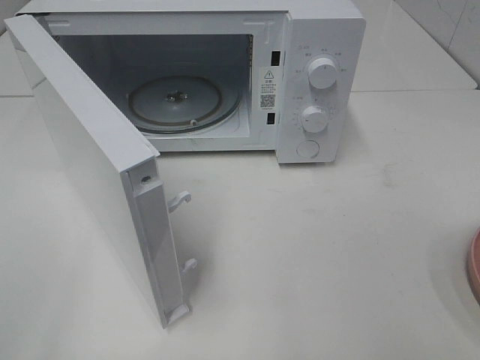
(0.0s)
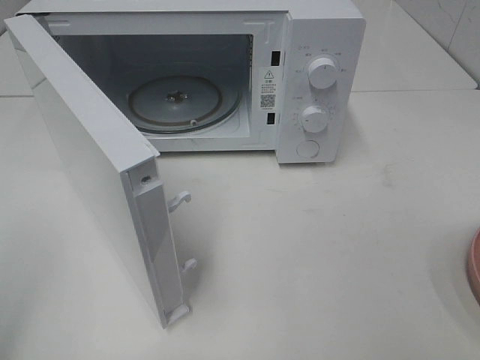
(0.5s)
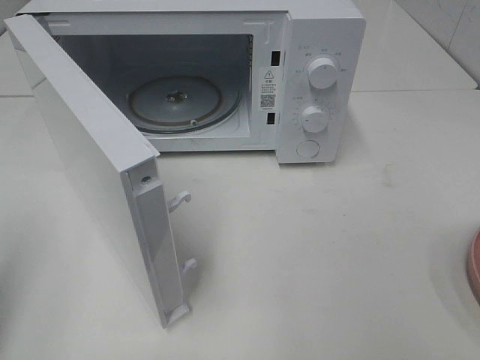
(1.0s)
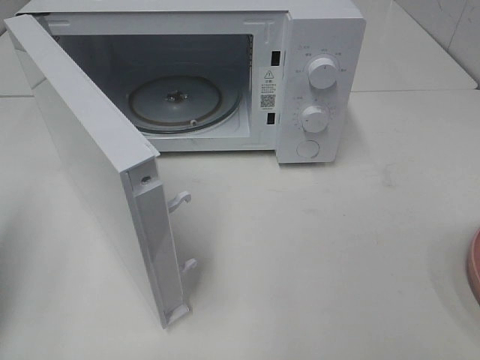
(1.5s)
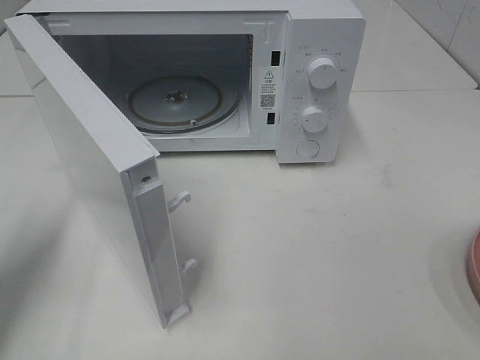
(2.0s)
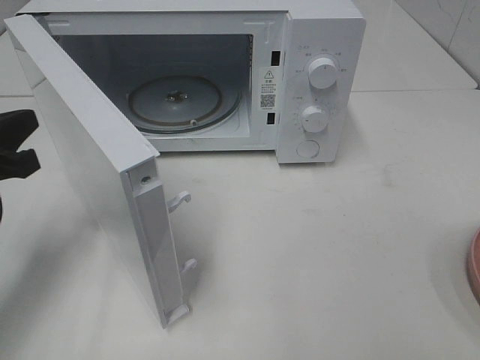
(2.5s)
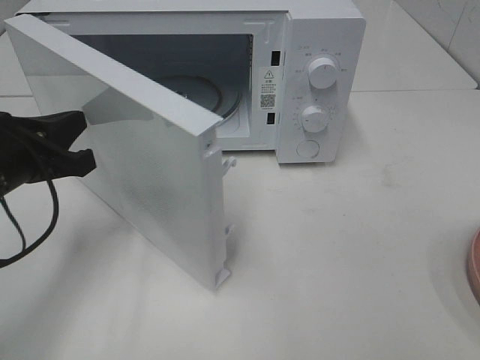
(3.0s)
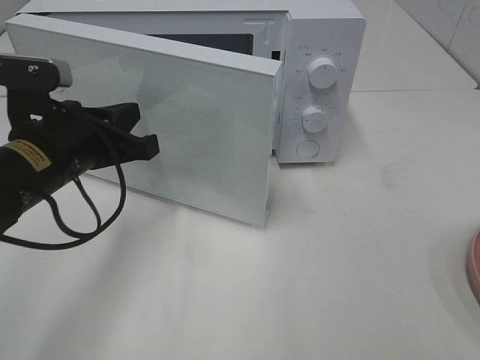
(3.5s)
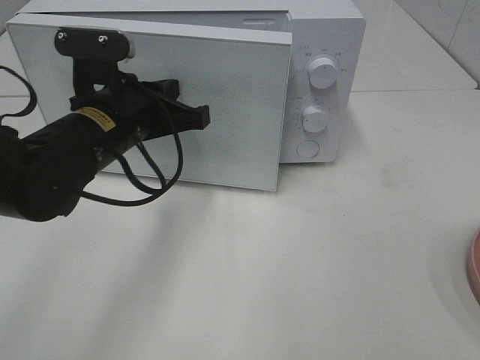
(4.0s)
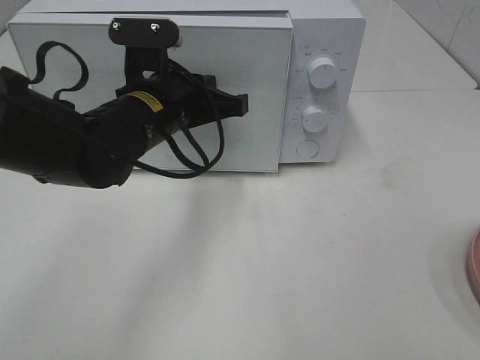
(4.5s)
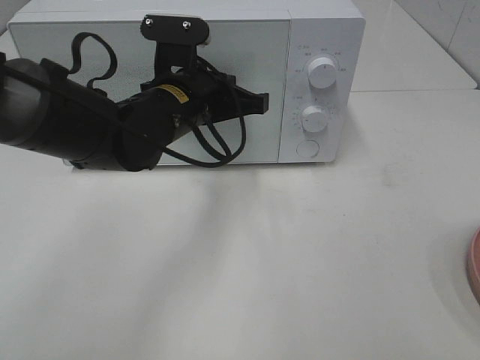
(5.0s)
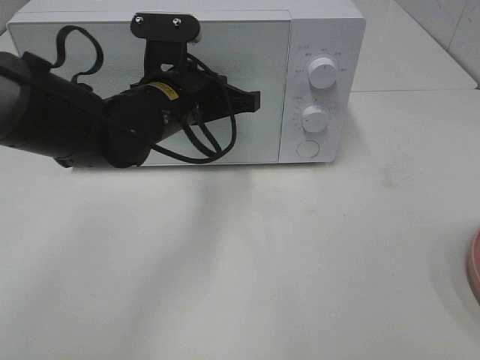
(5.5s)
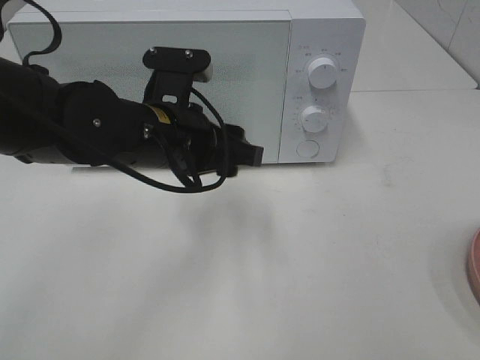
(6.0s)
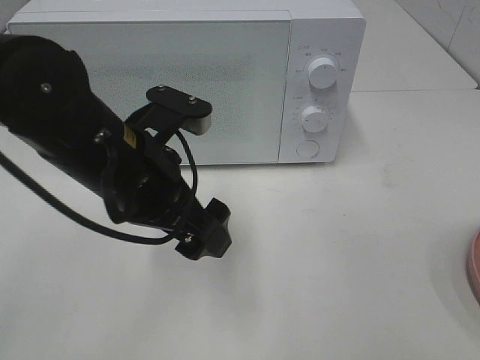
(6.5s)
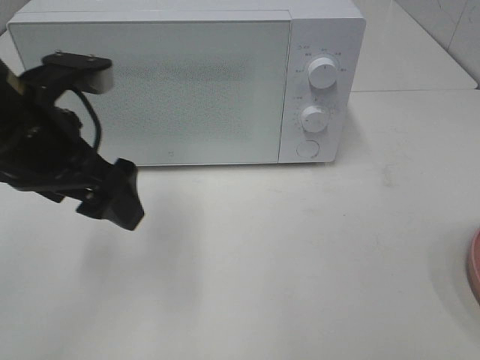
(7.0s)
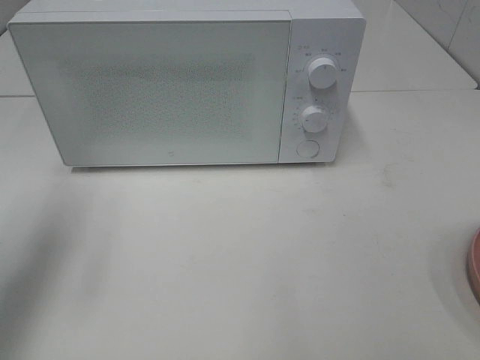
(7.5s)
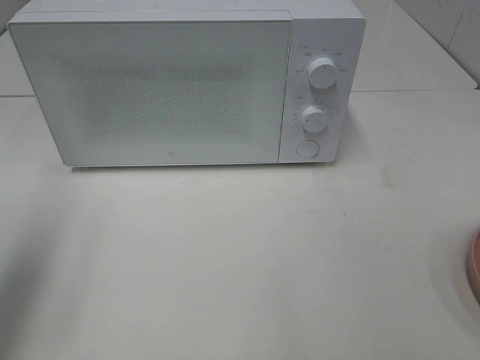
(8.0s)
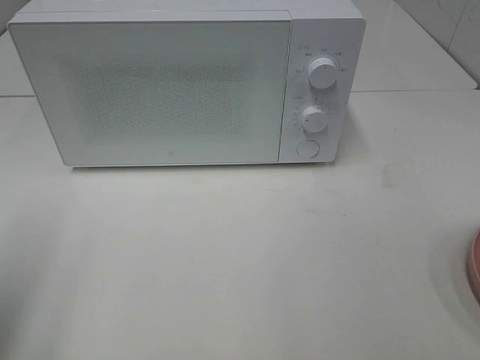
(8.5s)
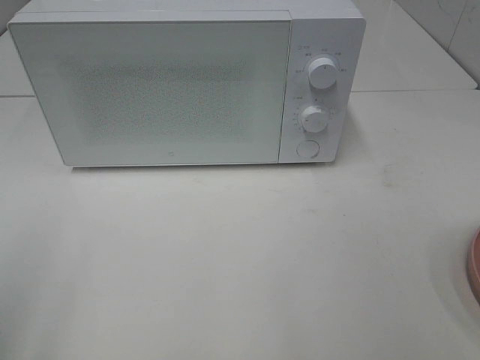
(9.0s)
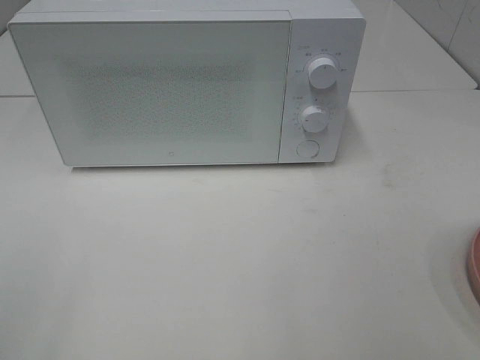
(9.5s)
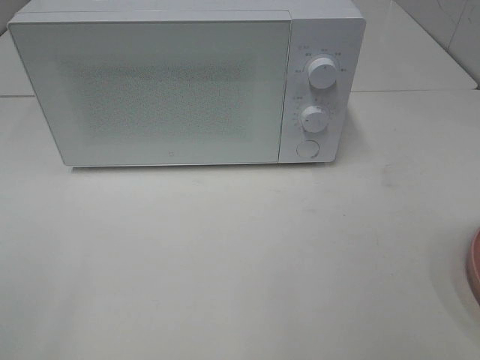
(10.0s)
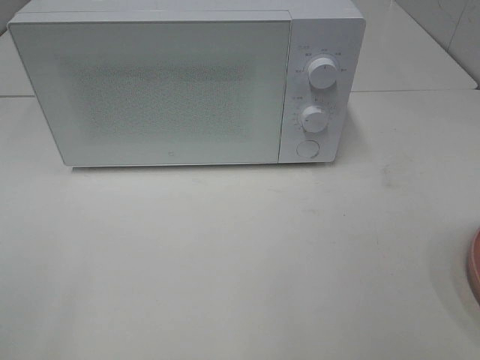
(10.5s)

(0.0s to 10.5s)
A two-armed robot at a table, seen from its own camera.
Task of the whole recording: Heat the burger.
Step, 0.0s - 5.5s: Left hand: close the microwave door.
0.0s - 2.0s: The left gripper shifts approximately 20 cm forward and downward, and closes its fingers.
2.0s - 4.0s: The left gripper is displaced to the right and forward by some 20 cm.
4.0s - 6.5s: The left gripper heads backward, covering roughly 5 cm, and opens.
6.5s - 8.5s: The left gripper heads to the left and backward, covering some 25 cm.

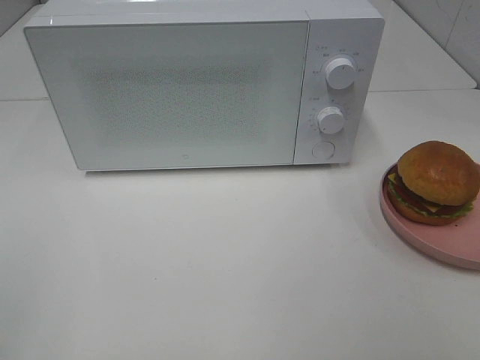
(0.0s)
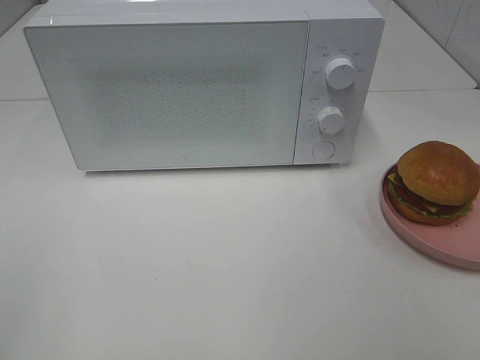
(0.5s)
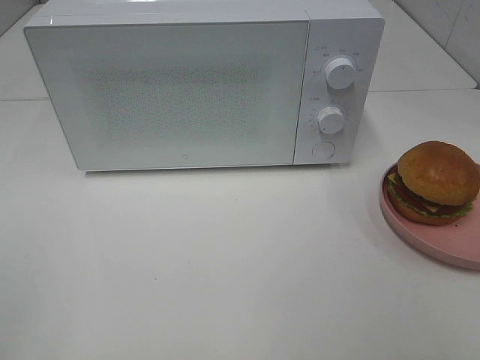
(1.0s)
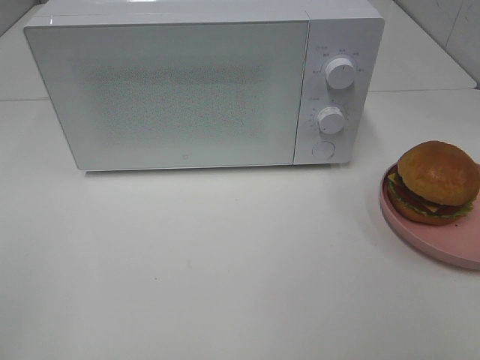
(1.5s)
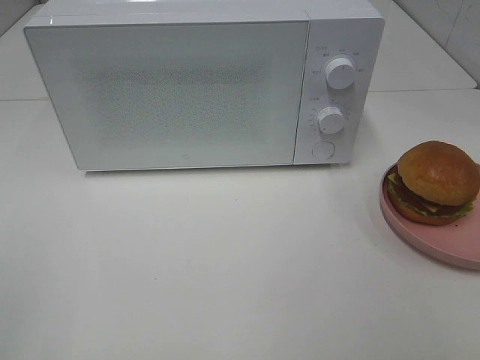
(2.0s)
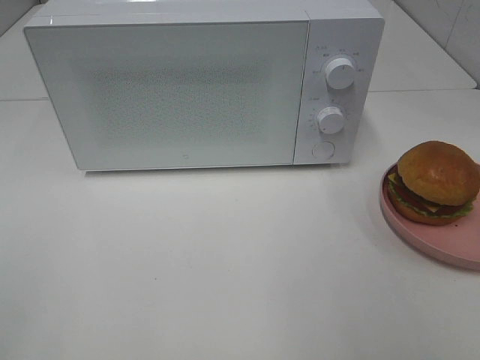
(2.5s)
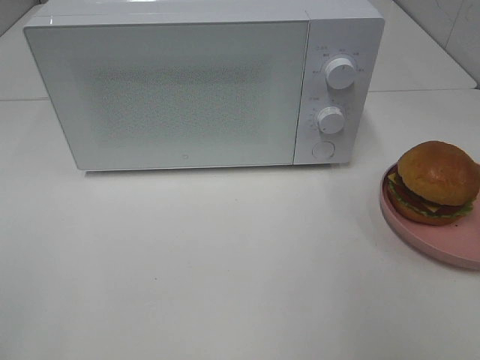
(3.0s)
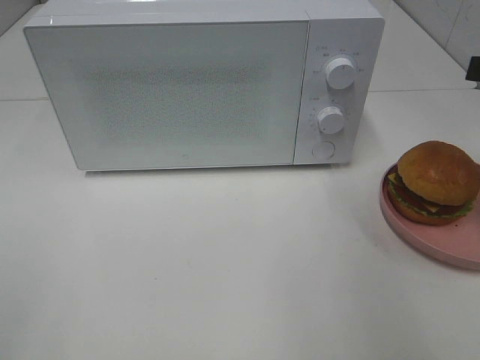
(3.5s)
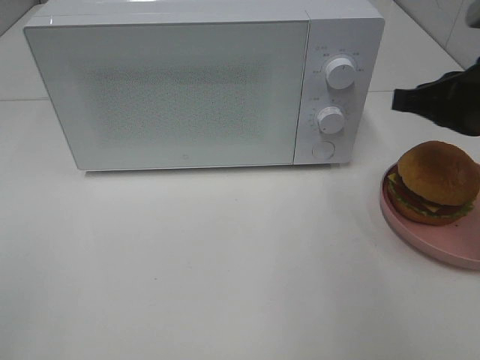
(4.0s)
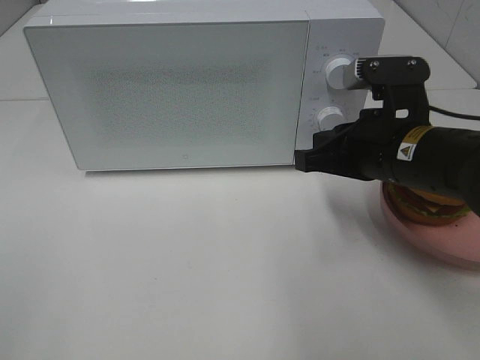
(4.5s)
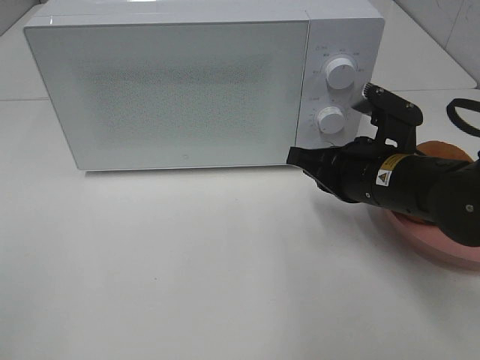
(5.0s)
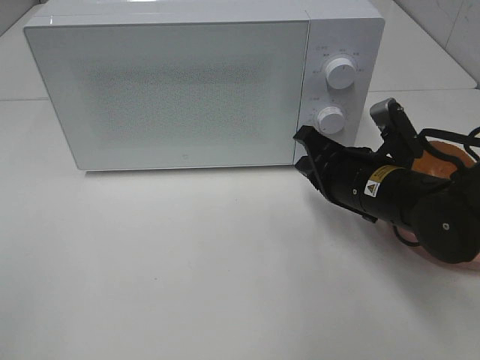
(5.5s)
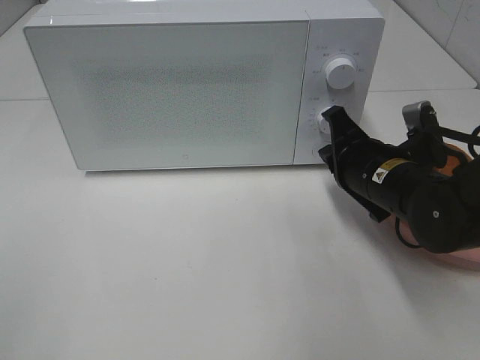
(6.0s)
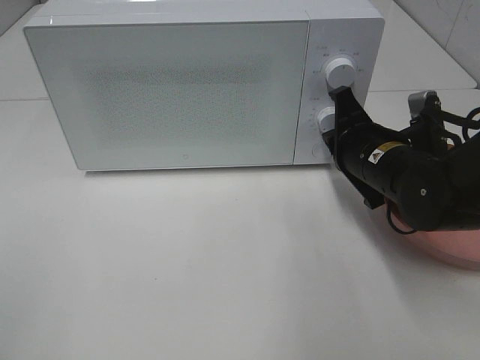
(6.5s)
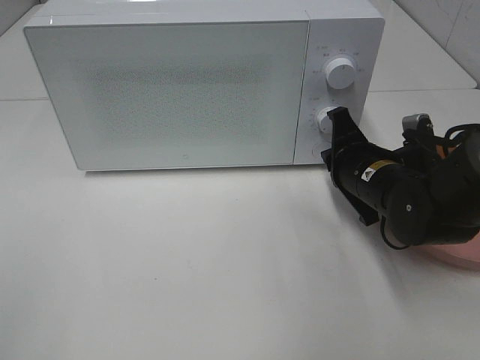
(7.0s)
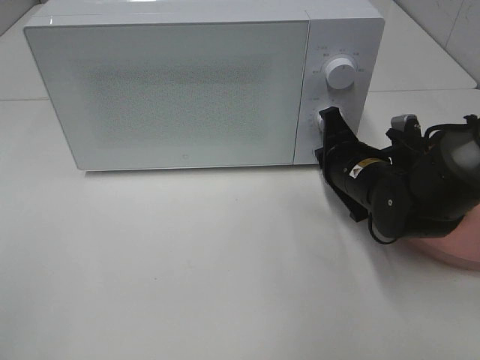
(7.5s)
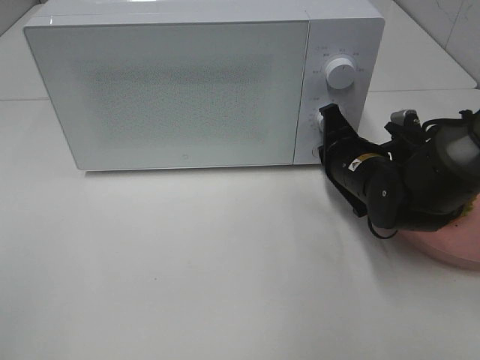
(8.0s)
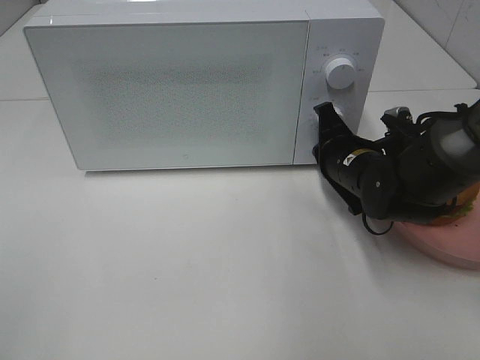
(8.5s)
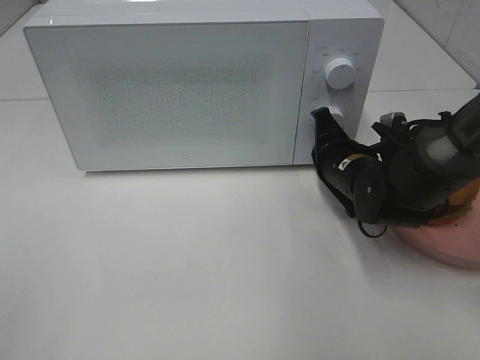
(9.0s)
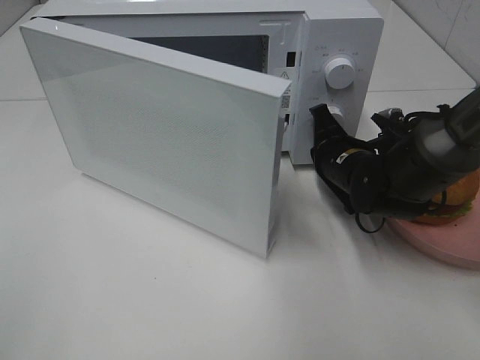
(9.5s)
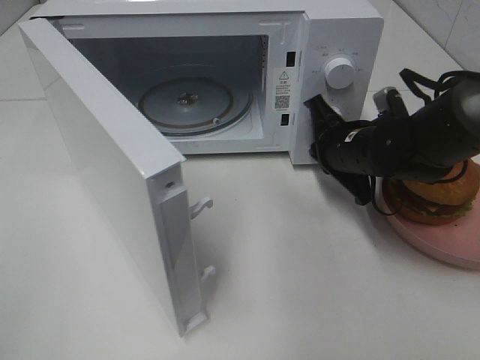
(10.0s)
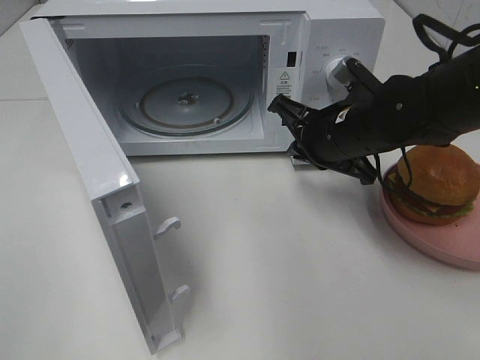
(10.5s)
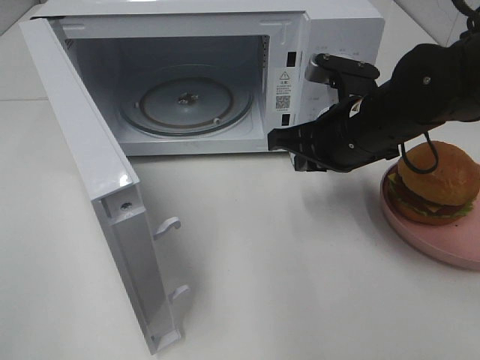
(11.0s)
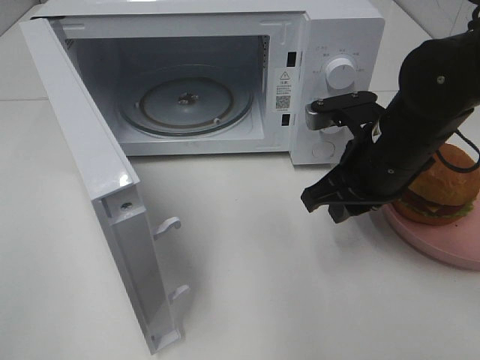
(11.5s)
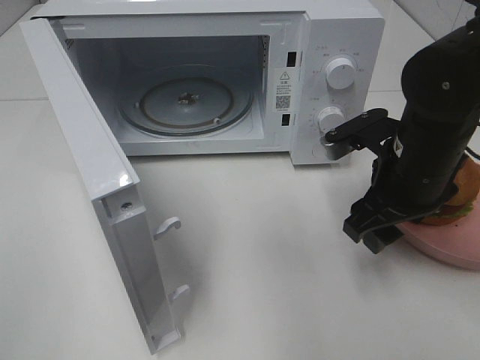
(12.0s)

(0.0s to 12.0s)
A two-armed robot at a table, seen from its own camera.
Task of the whole recording: Heat the burger.
Step, 0.0s - 10.0s: Right hand: press the switch.
0.0s - 2.0s: The two grippers keep their place.
2.0s - 4.0s: The right gripper travels forward by approximately 25 cm, and closes its fingers.
4.0s - 6.0s: The right gripper goes about 15 cm downward and to the left.
6.0s - 8.0s: The right gripper shifts by roughly 5 cm.
10.0s - 12.0s: The right gripper goes about 10 cm backward and upward, and opens its fingers.

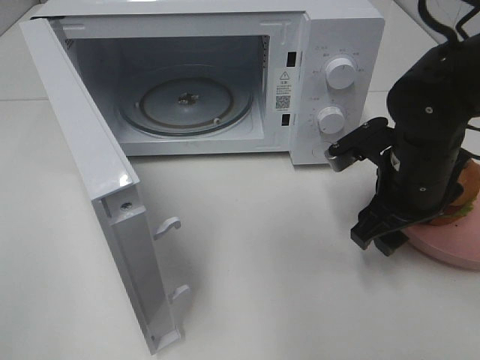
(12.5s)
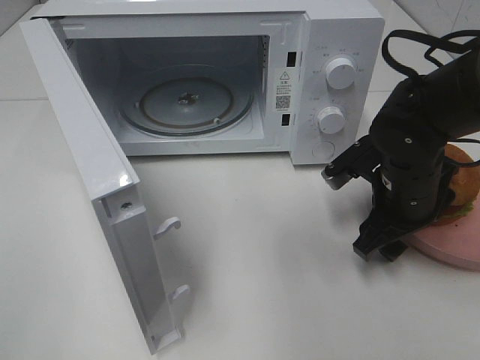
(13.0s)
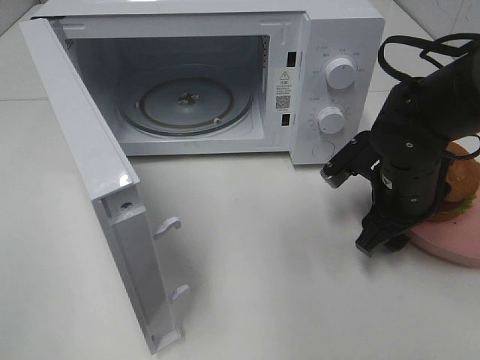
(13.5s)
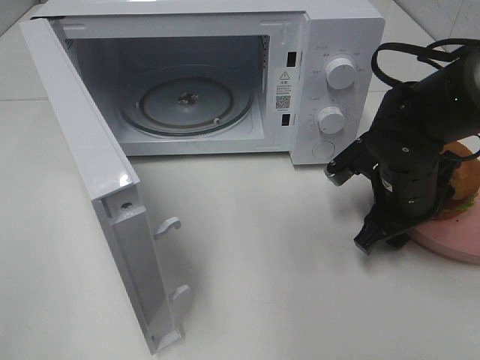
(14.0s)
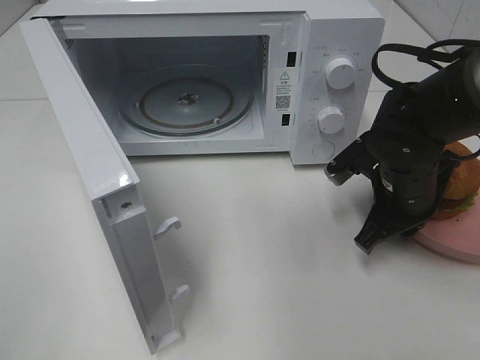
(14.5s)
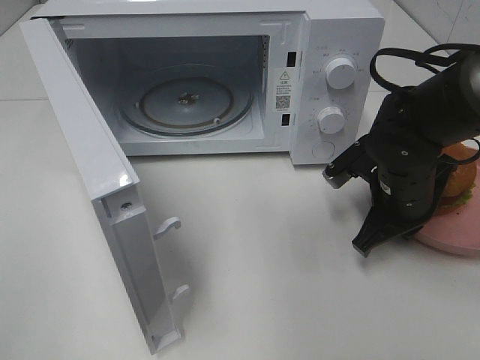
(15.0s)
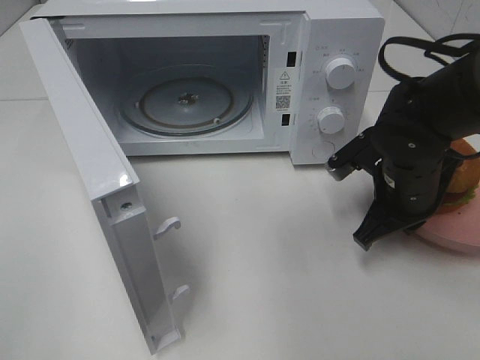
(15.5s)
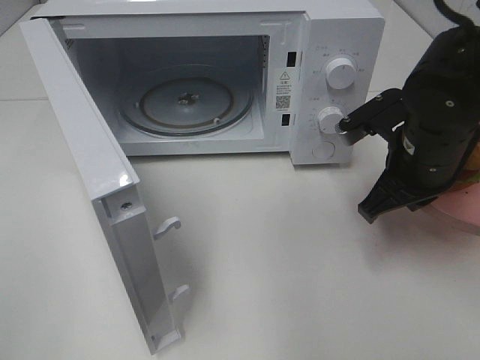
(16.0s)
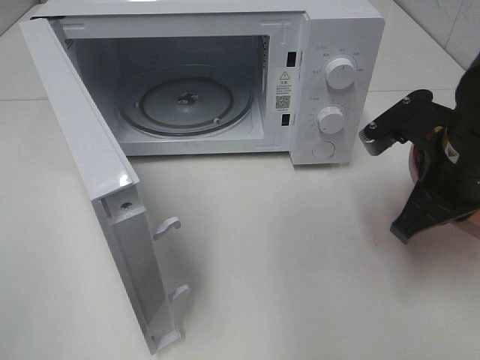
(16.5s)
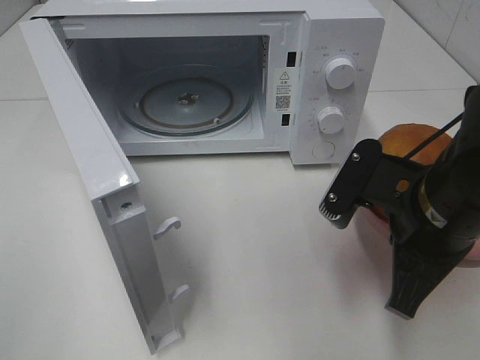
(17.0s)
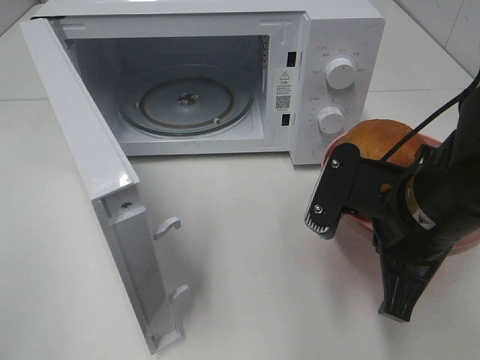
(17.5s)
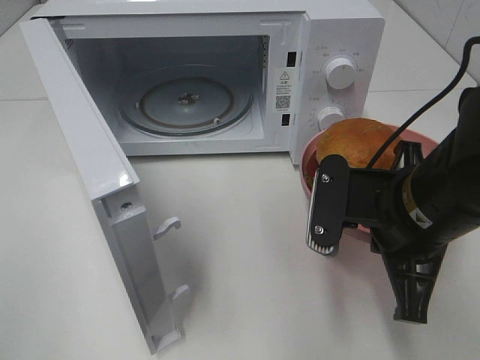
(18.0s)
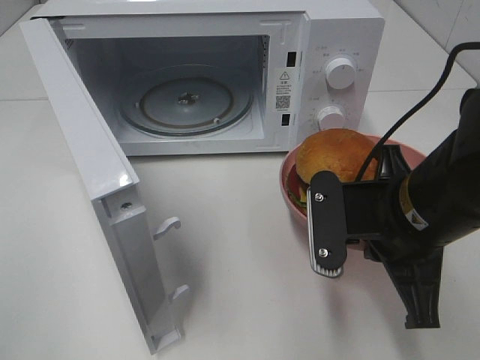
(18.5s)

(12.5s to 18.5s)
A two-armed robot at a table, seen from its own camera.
Task of the whole recording: Heat the burger.
Step, 12.5s - 14.5s: Right hand: grab the plate with the hamburger.
12.5s - 14.5s: The right gripper closes up.
14.5s - 16.5s: The right gripper goes roughly 10 cm upward and backward.
16.5s - 18.5s: The right gripper heads to the left and backward, covering approximately 10 cm.
